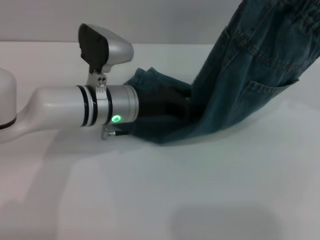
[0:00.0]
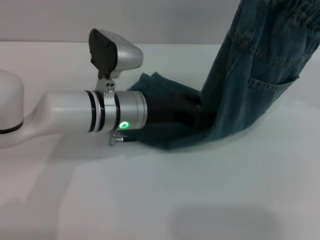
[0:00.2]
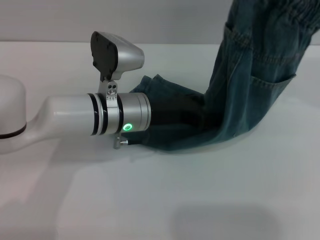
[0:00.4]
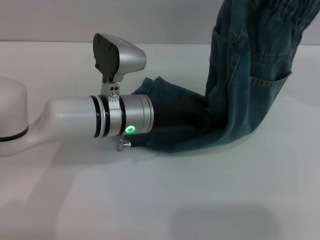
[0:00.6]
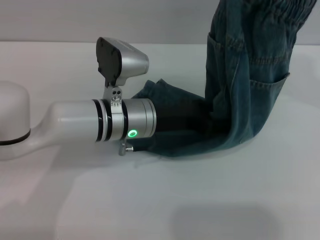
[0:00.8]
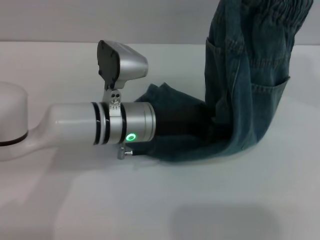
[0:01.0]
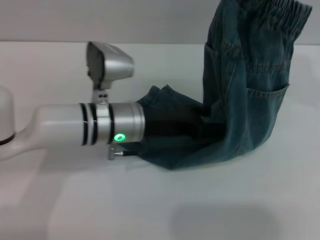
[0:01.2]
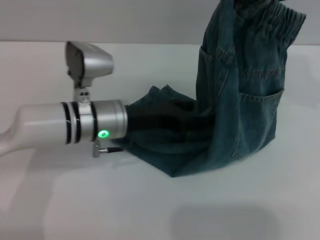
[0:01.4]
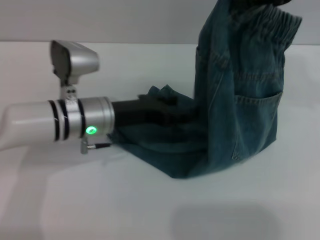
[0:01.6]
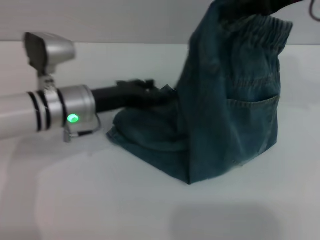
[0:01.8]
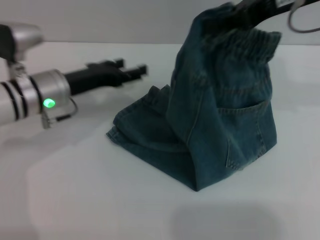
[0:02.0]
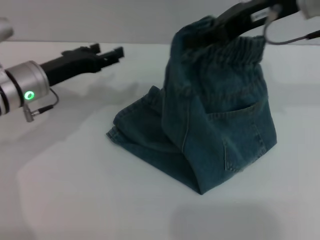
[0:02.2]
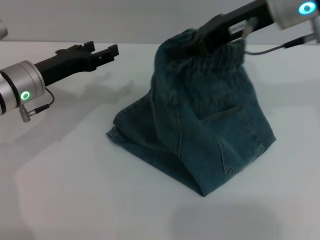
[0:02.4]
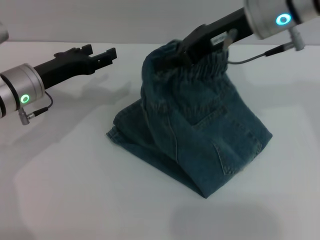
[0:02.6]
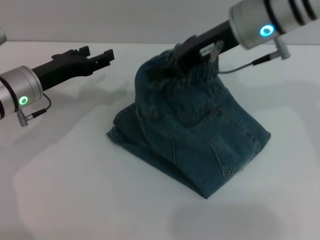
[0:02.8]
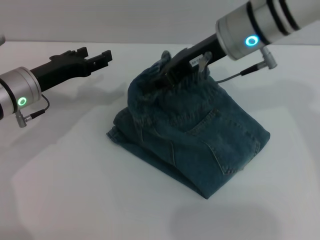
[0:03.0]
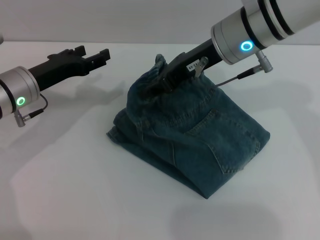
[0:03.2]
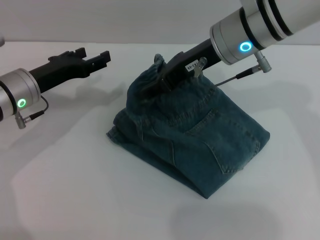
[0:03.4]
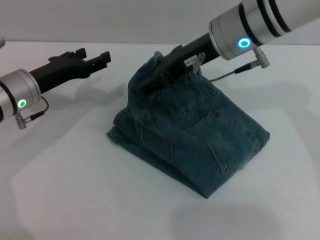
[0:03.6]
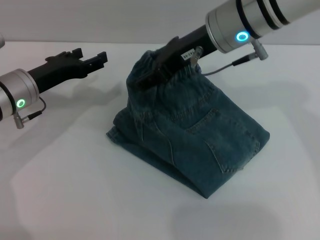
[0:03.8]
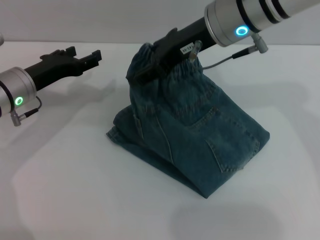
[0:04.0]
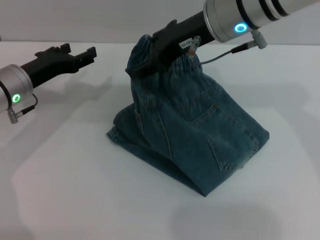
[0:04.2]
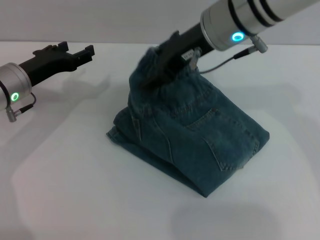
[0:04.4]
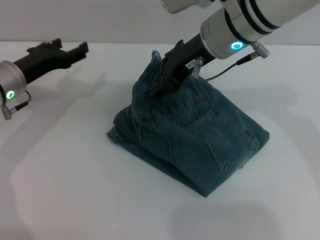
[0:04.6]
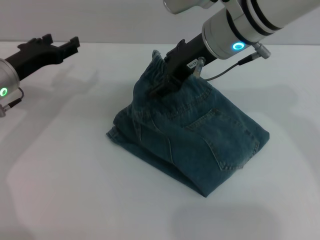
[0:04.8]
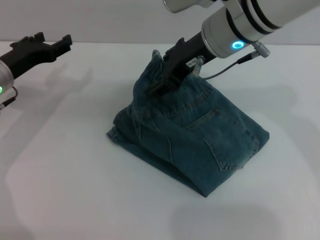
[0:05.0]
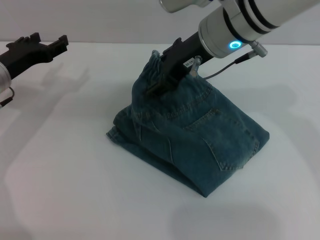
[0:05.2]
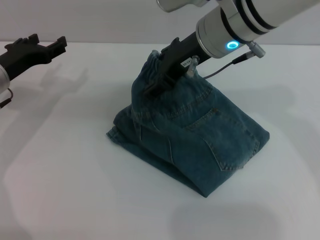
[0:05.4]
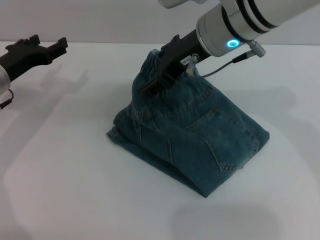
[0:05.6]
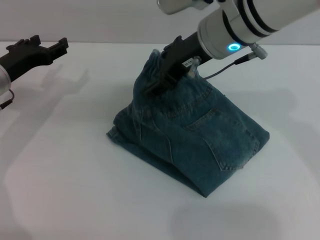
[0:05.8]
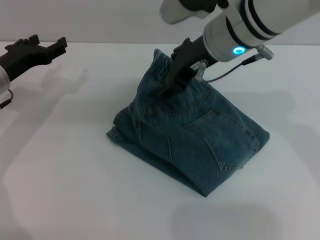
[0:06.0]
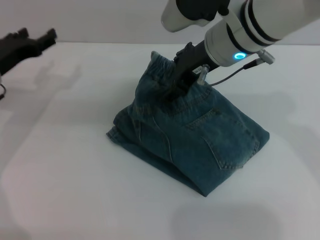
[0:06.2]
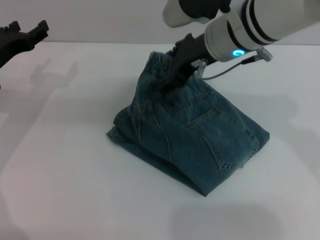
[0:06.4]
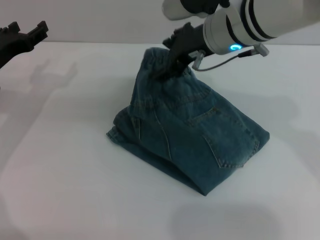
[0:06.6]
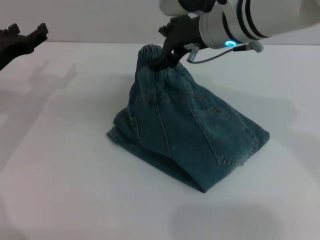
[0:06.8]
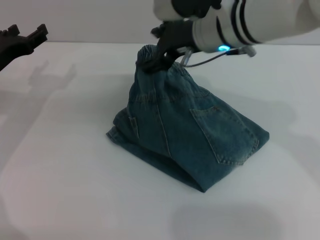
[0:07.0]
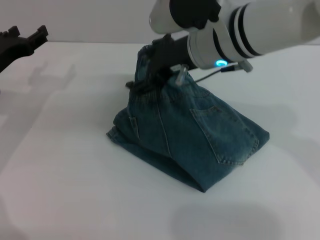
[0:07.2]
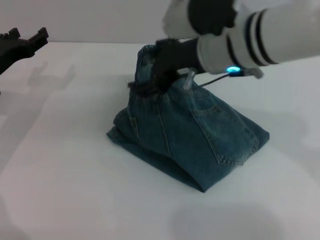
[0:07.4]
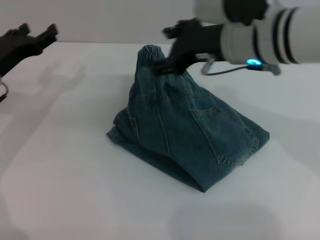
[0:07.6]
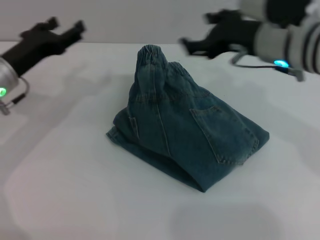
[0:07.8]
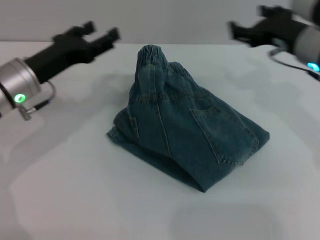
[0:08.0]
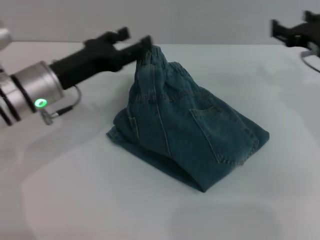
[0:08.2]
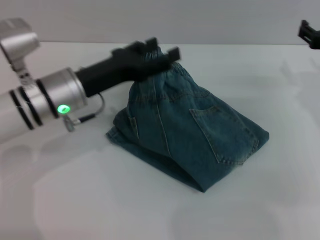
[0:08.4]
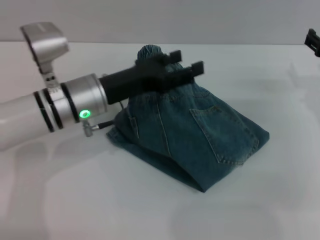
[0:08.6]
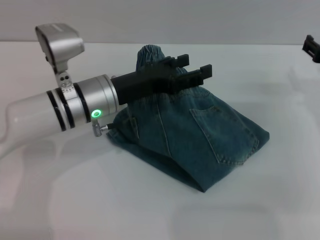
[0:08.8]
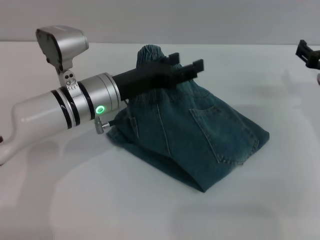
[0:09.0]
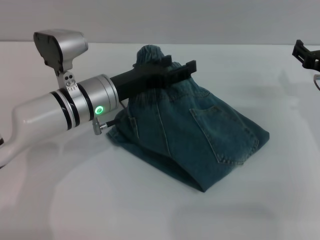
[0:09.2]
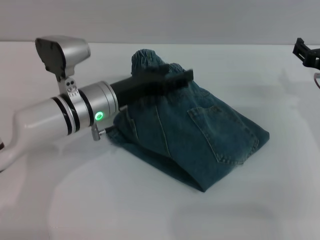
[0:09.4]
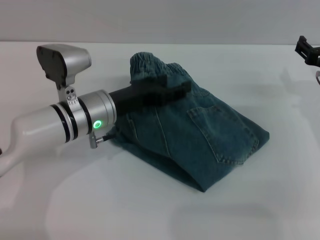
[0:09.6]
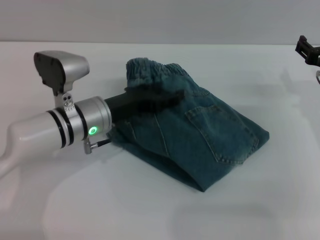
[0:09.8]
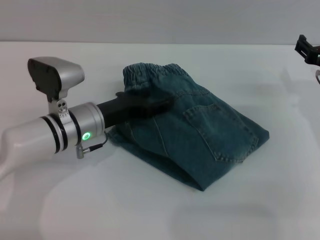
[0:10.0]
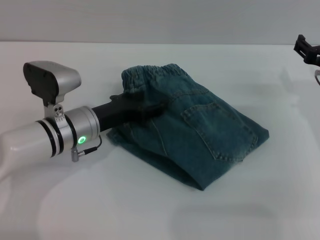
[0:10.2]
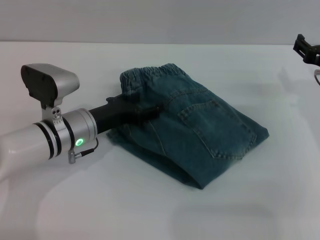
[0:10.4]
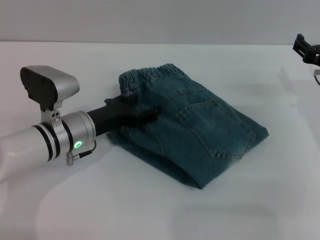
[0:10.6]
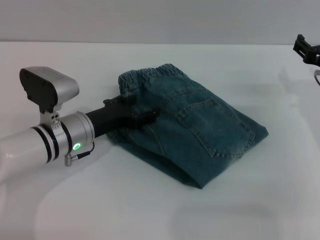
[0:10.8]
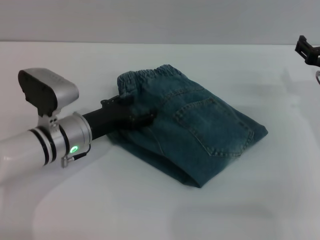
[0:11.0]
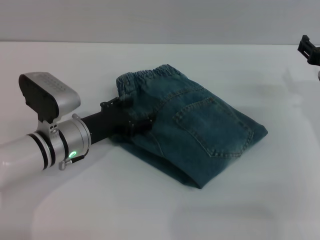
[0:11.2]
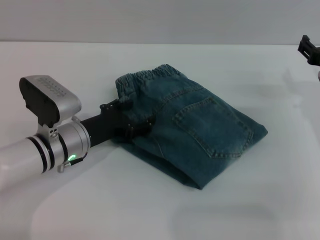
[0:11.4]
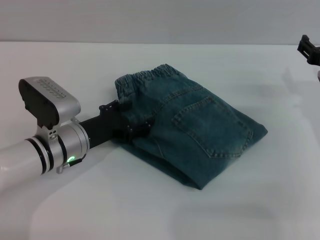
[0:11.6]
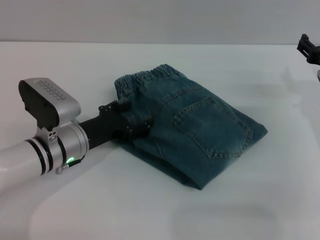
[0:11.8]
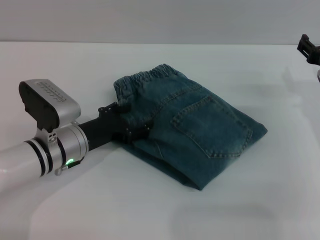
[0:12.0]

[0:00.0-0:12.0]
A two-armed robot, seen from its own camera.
Step, 0:00.0 to 0:07.4: Fold the pants from right to left with the right gripper.
0:00.0 to 0:01.6: The right gripper changes place by some 5 cm.
0:01.6 to 0:03.0: The right gripper goes roughly 15 cm to the left and downward; the left gripper shifts approximately 10 cm to the left.
0:03.0 to 0:04.4: The right gripper opens its fingers.
0:04.4 to 0:06.0: The grippers move only a little.
0:07.6 to 0:09.0: The left gripper shifts about 15 cm to the right; the right gripper travels to the right and downward by some 20 cm.
0:09.0 to 0:10.4: The left gripper goes roughly 5 cm downward.
0:10.4 to 0:12.0: The grippers stay close to where they were, moving slightly.

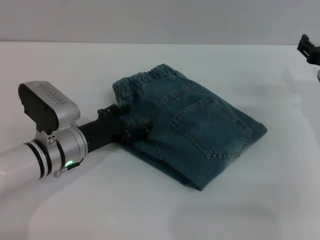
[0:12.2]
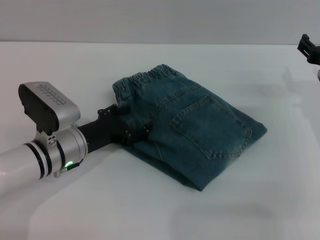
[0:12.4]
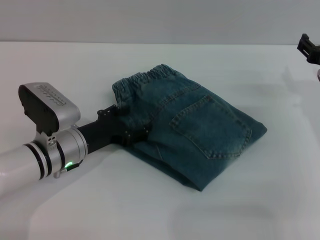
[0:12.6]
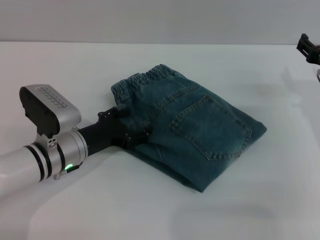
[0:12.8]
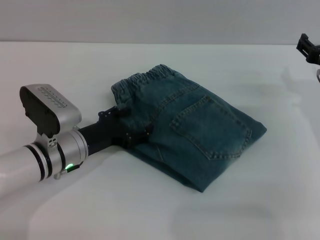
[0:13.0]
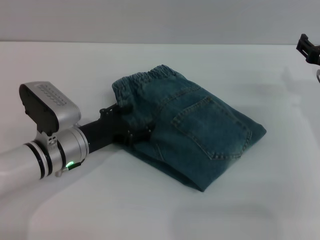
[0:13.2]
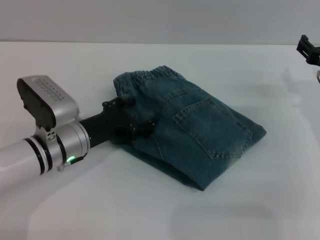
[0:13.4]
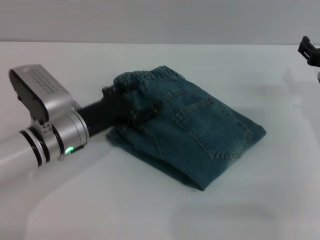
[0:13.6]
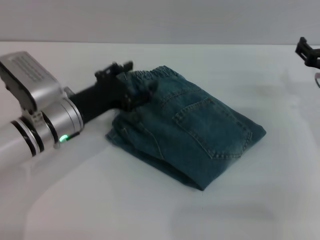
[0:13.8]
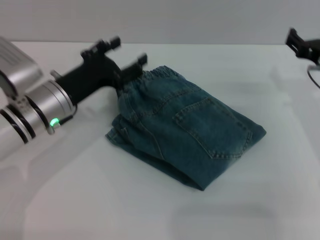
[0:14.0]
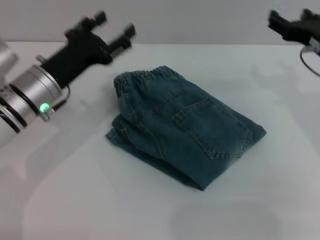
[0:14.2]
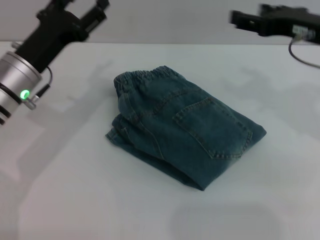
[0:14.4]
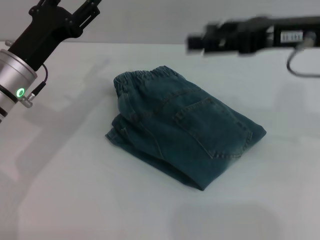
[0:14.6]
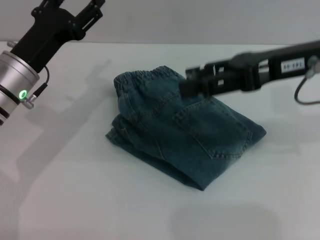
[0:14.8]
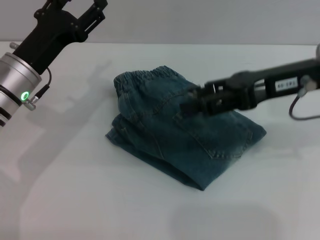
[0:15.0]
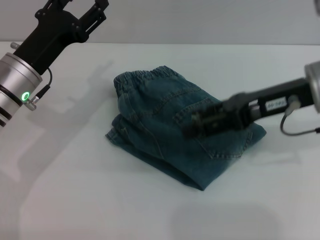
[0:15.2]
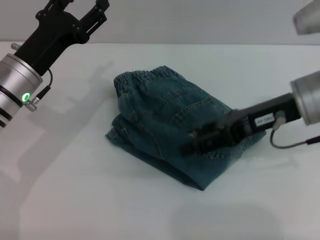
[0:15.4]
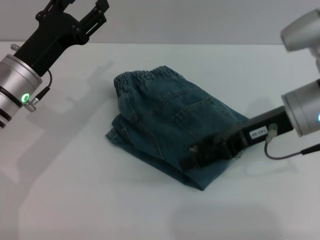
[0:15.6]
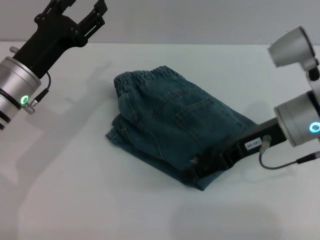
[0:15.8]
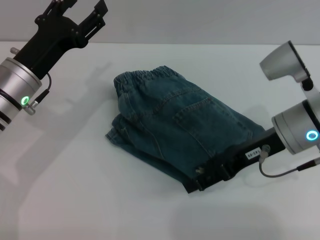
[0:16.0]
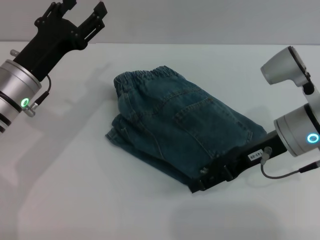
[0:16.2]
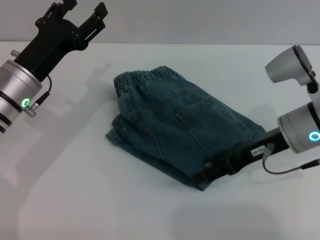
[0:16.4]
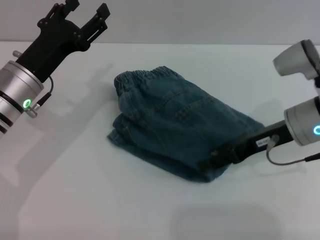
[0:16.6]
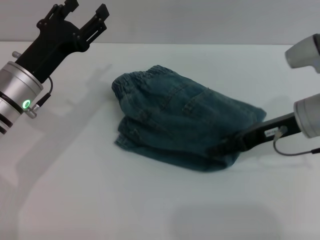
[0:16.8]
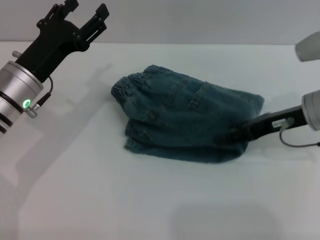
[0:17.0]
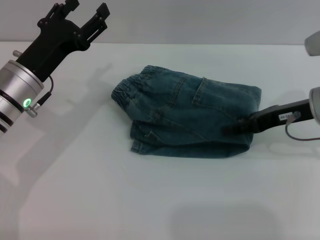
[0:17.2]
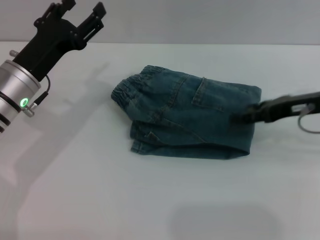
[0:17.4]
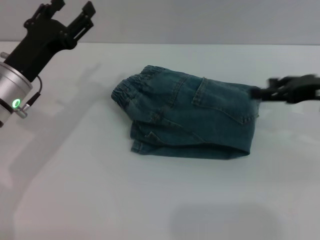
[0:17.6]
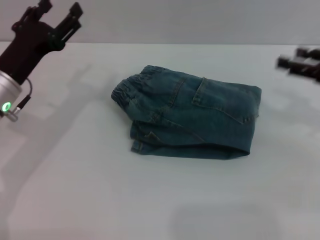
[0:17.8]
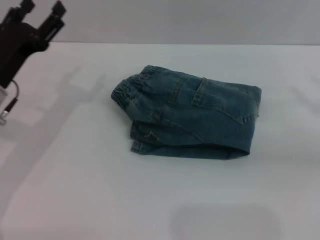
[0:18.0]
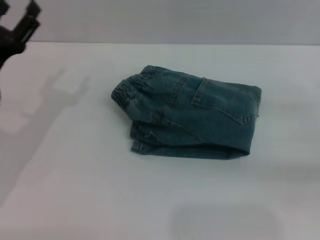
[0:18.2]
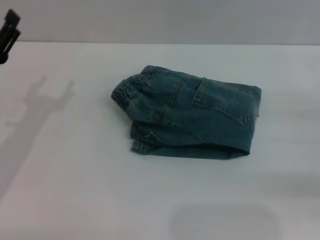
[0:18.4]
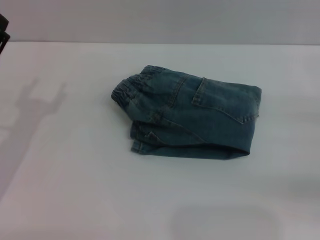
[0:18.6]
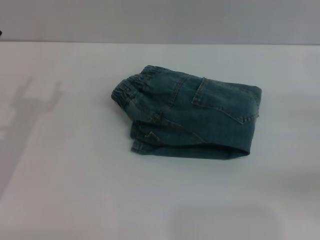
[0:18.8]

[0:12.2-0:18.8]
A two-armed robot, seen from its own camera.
Step, 0:12.2 to 0:17.4: Place the folded trousers onto the center area with the right grippers.
0:12.2 to 0:13.8: There are only small adjustments of the grippers.
0:13.8 to 0:15.4: The left gripper ends up roughly 5 cm from where it was, while the right gripper goes approximately 10 cm upward and to the left.
0:15.4 to 0:17.2: The right gripper shifts about 10 cm downward and to the right.
0:17.2 to 0:18.8: The right gripper heads to the right and backward, covering roughly 20 cm, while the left gripper goes some 10 cm to the left and backward.

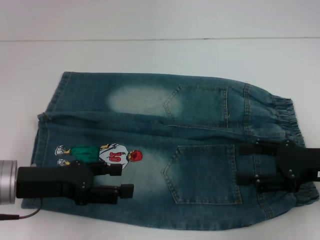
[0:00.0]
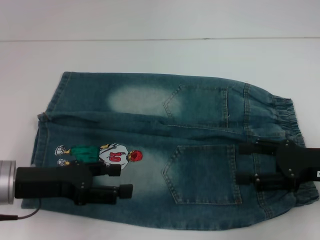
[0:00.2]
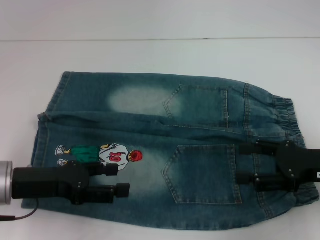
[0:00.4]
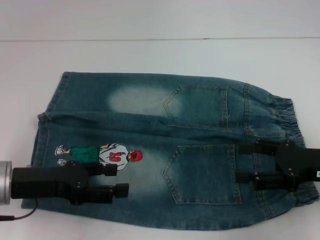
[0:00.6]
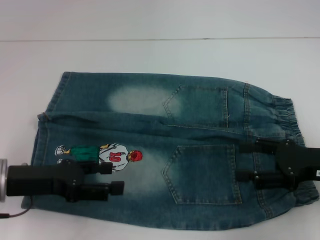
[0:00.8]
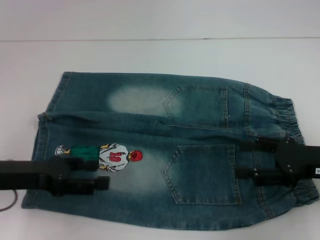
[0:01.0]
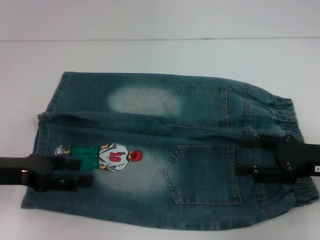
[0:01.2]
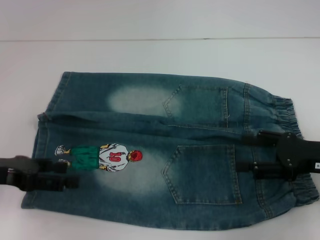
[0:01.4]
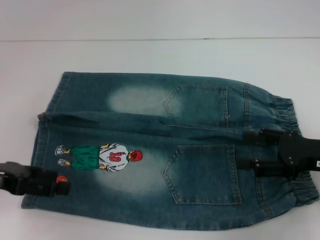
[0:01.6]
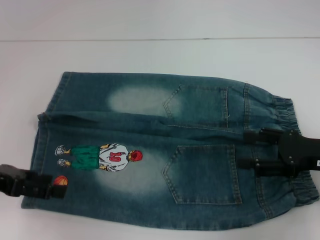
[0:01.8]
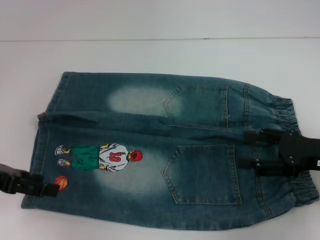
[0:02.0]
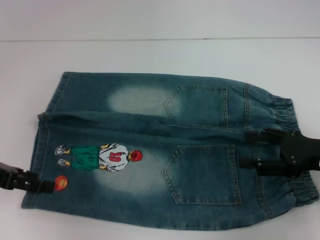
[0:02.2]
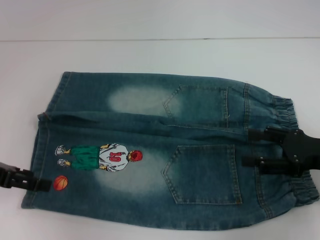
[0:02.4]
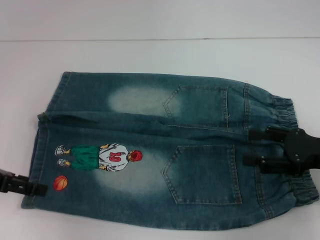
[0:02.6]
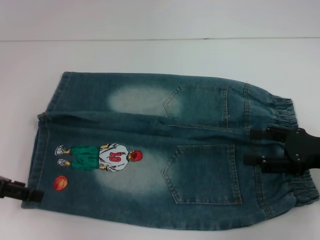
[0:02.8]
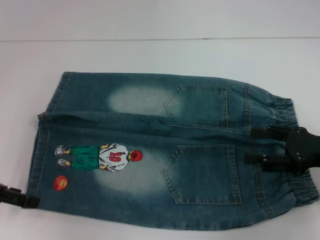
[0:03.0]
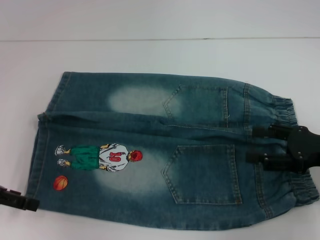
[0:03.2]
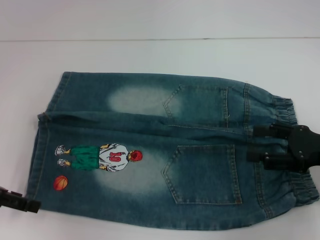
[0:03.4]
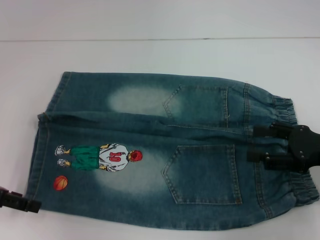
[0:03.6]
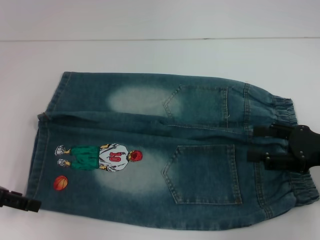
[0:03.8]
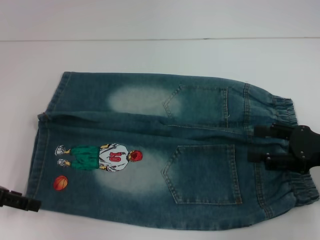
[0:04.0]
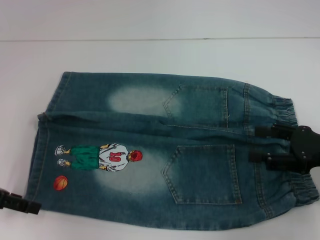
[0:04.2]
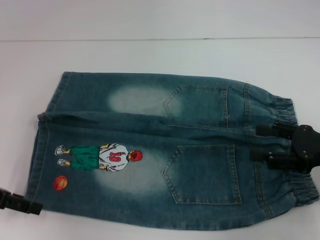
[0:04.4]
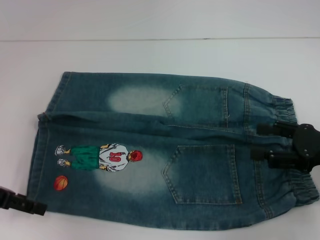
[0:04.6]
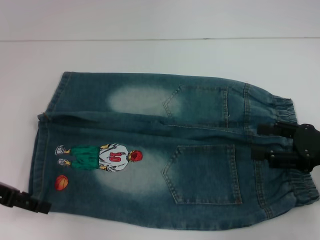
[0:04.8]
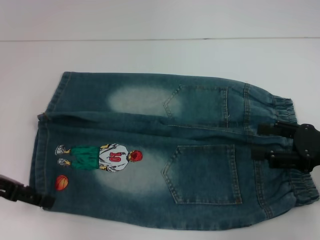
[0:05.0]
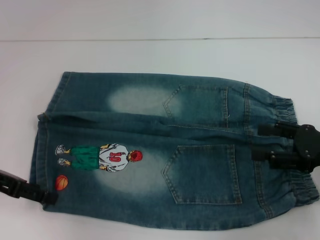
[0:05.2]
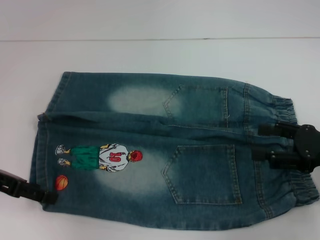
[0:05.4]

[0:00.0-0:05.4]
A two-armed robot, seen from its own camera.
0:00.0 to 0:01.4: The left gripper shifts about 5 cm to the left.
0:02.8 to 0:04.0: Neither gripper changes place.
0:04.0 to 0:05.4: There are only small adjustments of the grippers.
